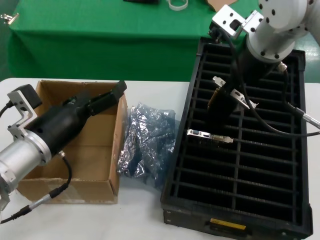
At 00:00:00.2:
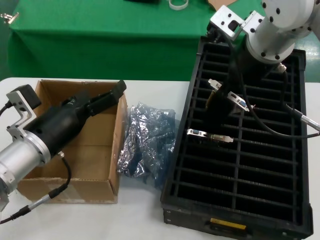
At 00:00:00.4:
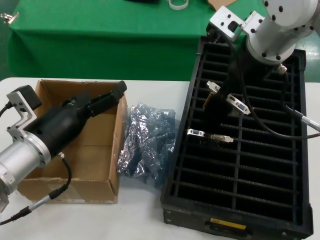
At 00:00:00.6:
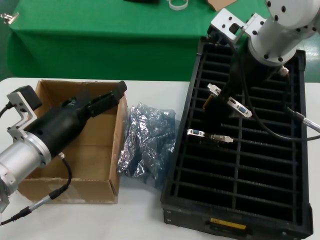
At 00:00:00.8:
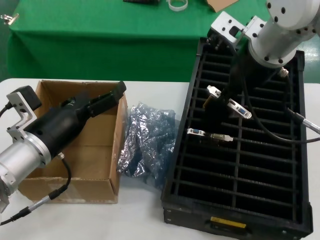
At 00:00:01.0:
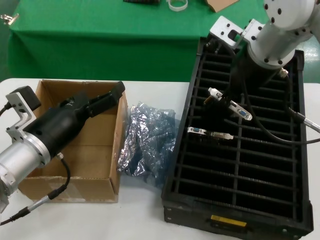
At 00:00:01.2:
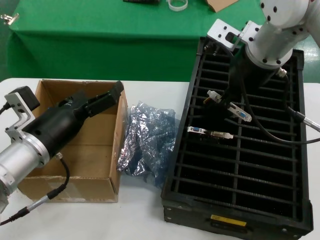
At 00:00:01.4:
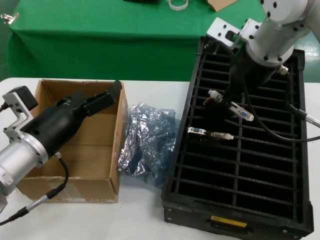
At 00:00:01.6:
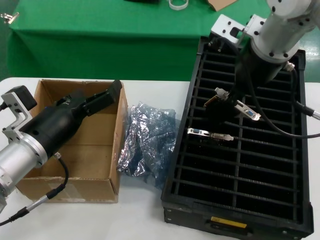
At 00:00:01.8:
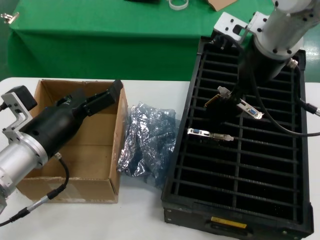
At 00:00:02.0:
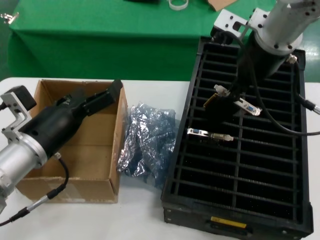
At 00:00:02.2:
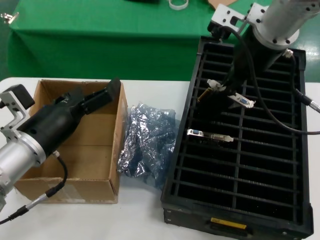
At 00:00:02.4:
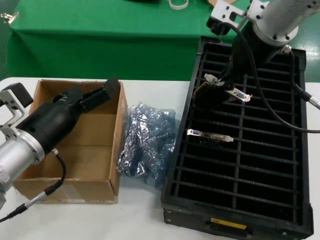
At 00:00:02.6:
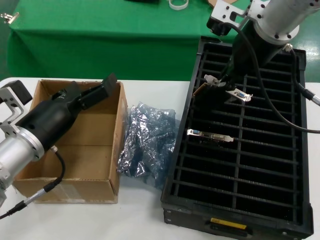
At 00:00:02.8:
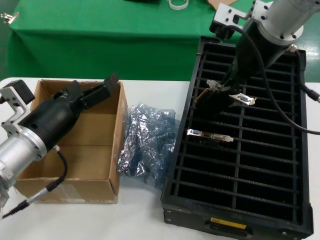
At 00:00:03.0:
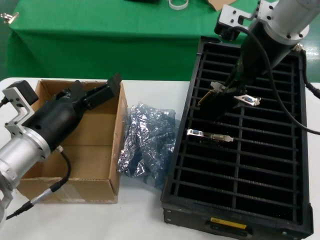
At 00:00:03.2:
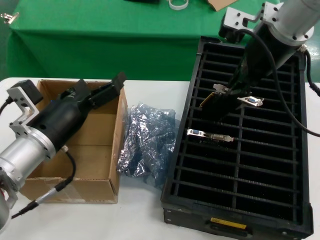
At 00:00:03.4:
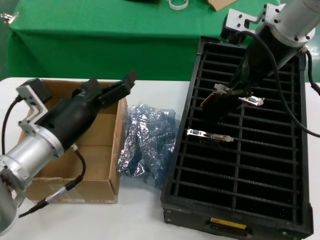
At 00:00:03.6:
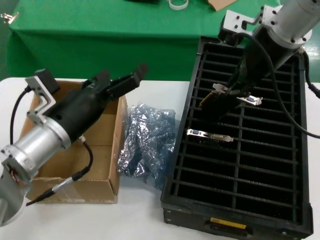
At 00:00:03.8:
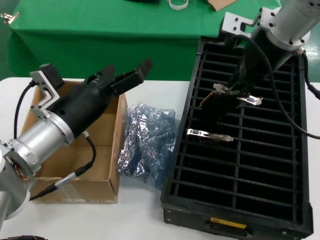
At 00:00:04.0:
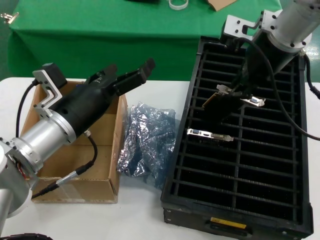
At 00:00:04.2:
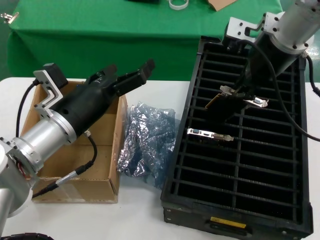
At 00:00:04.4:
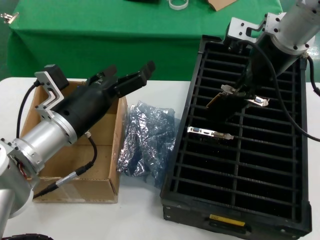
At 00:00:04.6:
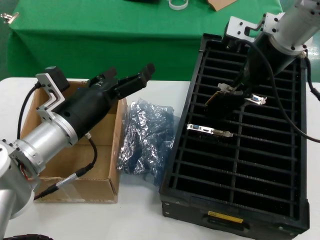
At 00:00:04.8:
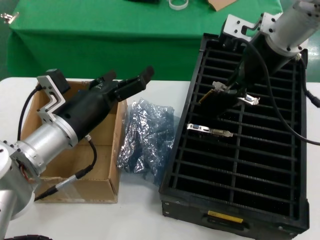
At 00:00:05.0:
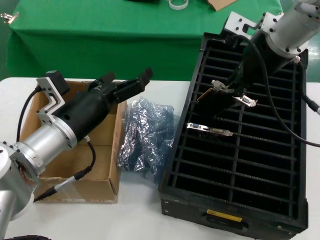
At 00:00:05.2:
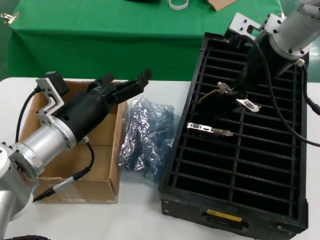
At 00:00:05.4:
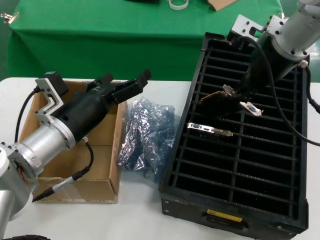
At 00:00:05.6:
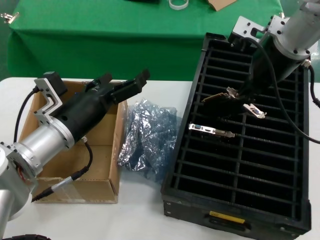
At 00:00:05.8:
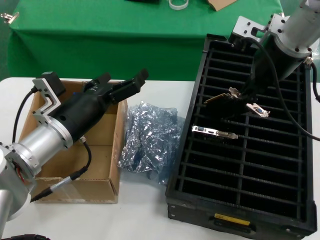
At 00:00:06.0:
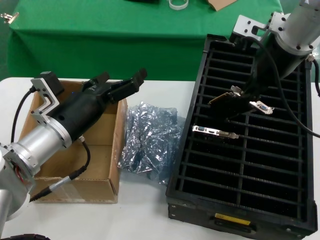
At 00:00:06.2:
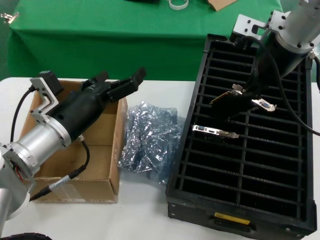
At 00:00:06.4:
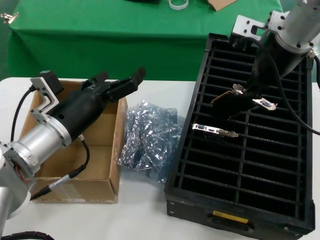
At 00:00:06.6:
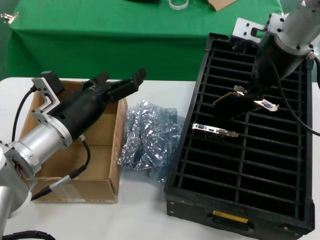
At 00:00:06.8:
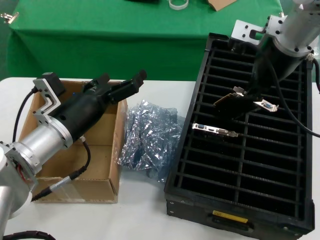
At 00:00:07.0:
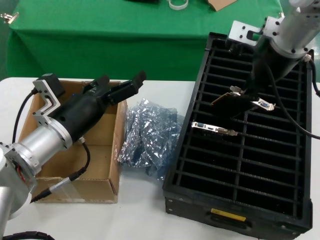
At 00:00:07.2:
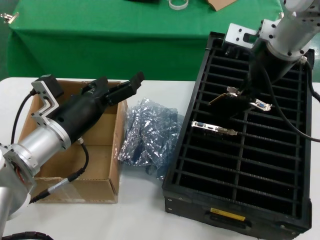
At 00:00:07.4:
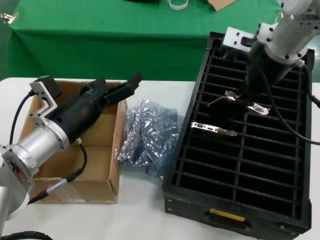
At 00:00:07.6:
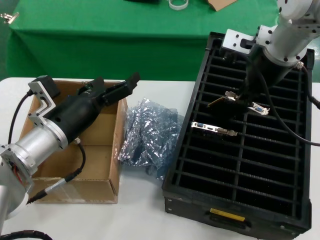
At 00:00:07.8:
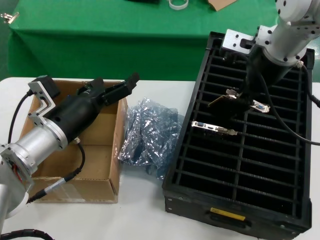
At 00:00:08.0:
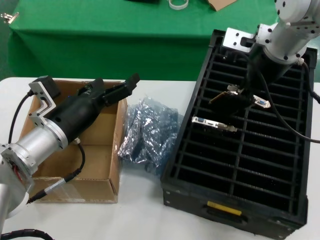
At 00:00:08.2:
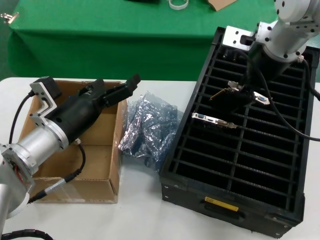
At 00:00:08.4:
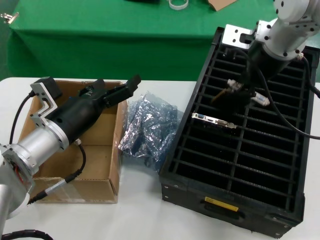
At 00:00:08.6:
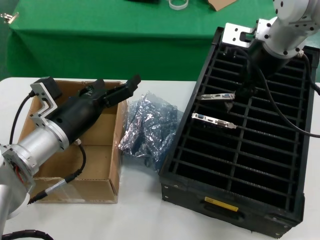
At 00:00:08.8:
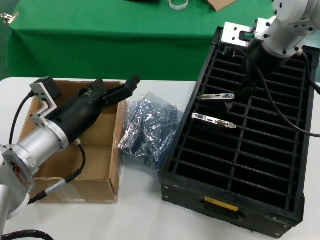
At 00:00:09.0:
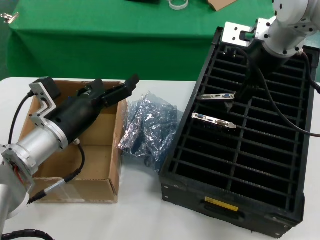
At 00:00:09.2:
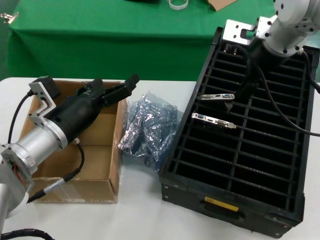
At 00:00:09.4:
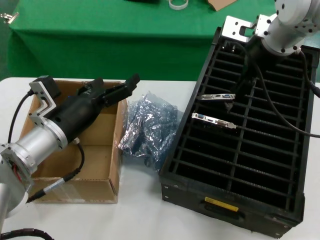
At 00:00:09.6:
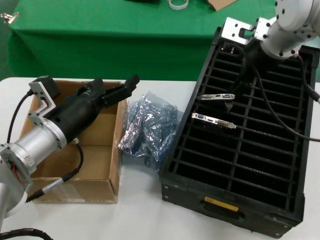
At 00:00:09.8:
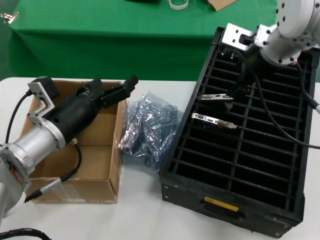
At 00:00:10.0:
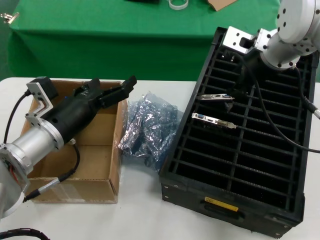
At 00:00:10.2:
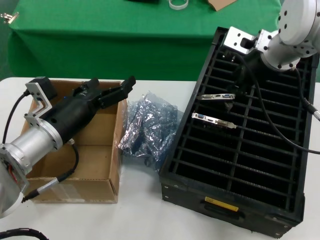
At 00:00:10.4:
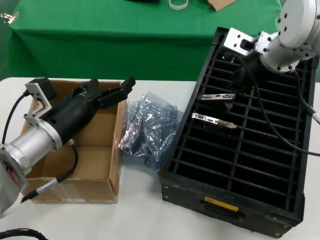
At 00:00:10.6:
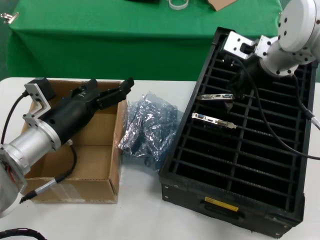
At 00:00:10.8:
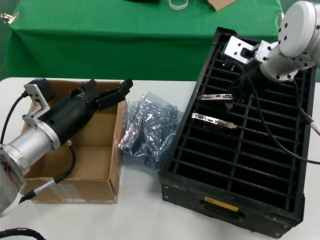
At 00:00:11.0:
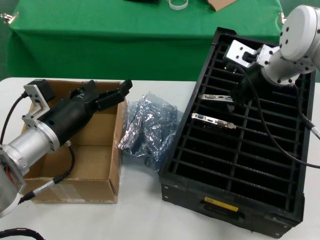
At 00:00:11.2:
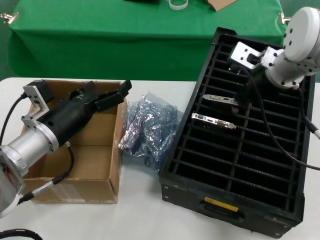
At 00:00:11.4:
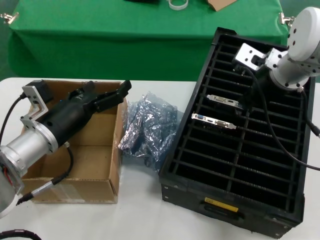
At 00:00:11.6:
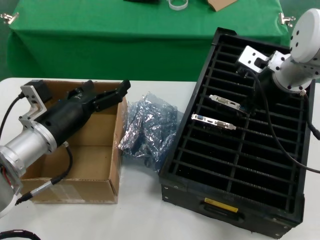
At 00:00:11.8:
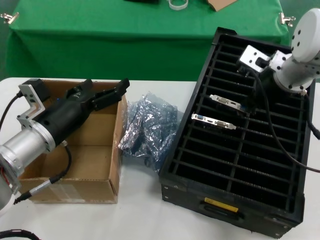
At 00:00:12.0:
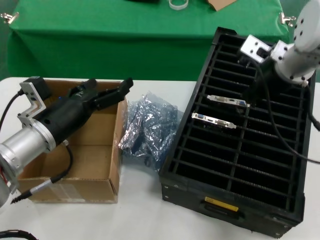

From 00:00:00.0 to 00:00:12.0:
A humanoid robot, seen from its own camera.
Task of the whole recording: take out graphics card from box remove packaging put into black container.
From 00:00:00.0 to 00:00:01.6: The hands make only small movements.
From 00:00:01.6 to 00:00:03.0: The hands make only small movements.
From 00:00:06.0 to 00:00:07.6: The hands move only a little.
From 00:00:09.0 to 00:00:10.4: There are only small adjustments of the hands.
From 00:00:10.4 to 00:00:12.0: There are only small adjustments of the hands.

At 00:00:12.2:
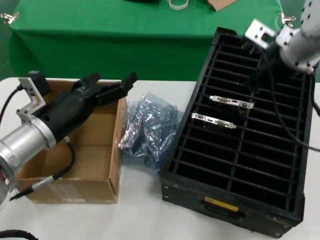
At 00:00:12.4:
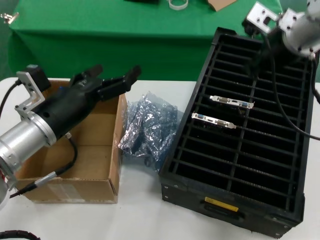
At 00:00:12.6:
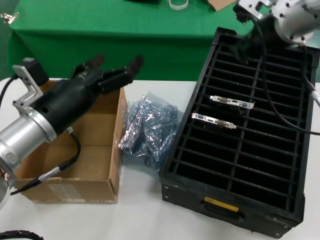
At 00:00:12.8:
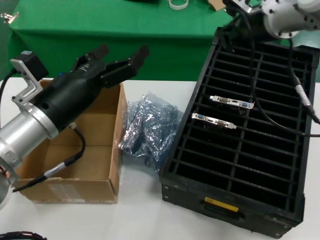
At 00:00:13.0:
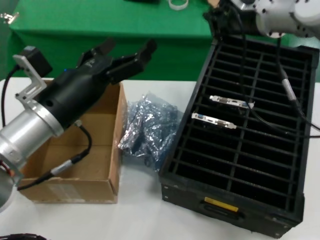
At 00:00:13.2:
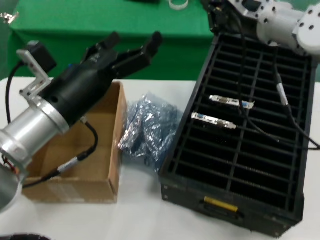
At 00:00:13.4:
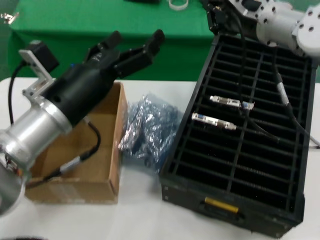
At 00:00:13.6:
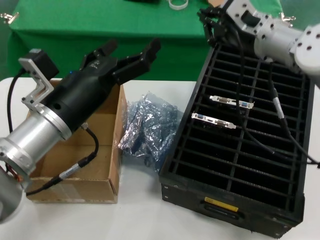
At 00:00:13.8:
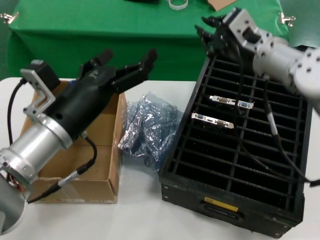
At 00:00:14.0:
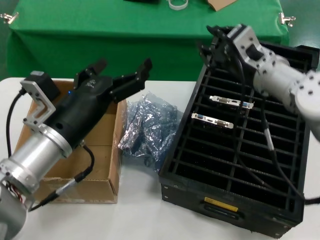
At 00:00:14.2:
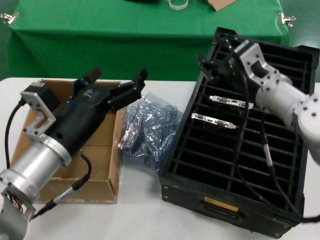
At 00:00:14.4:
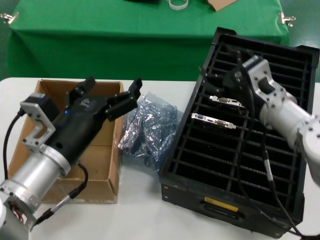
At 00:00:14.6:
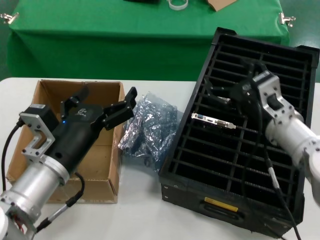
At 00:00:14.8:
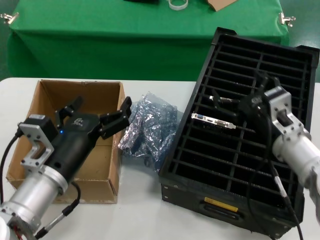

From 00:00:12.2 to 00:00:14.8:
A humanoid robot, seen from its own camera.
Task of the whole recording: take out graphics card from box remove packaging put into black container.
From 00:00:12.2 to 00:00:13.4: The left hand travels to the right and upward by some 10 cm.
From 00:00:13.4 to 00:00:14.8: The left hand moves downward, roughly 10 cm. Meanwhile the right hand goes about 20 cm downward and backward.
